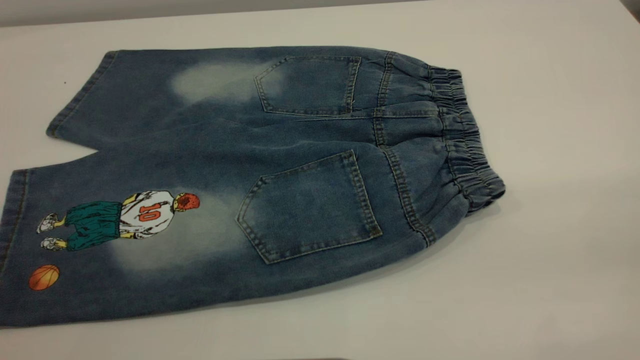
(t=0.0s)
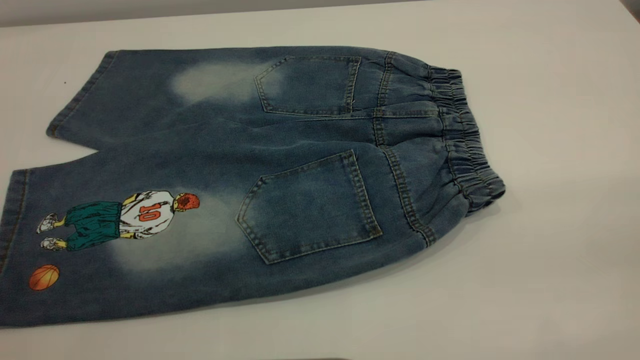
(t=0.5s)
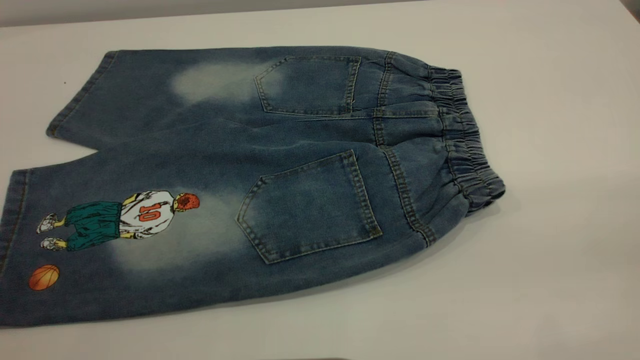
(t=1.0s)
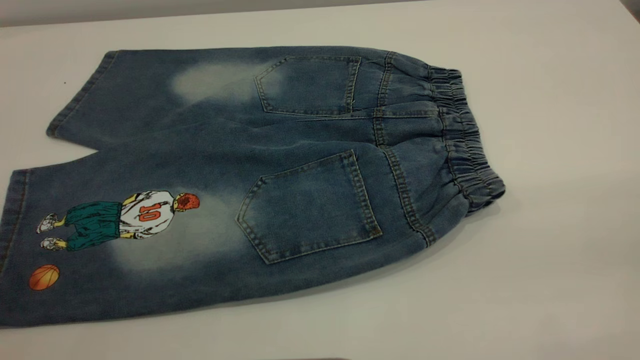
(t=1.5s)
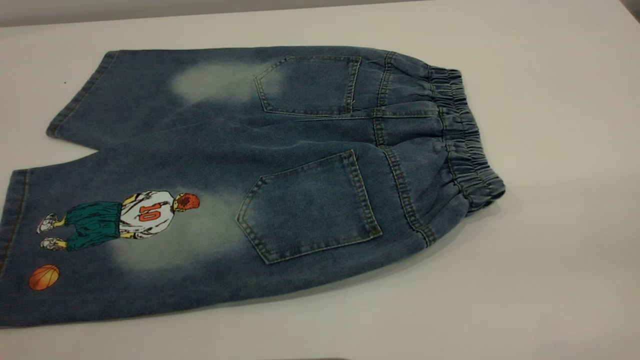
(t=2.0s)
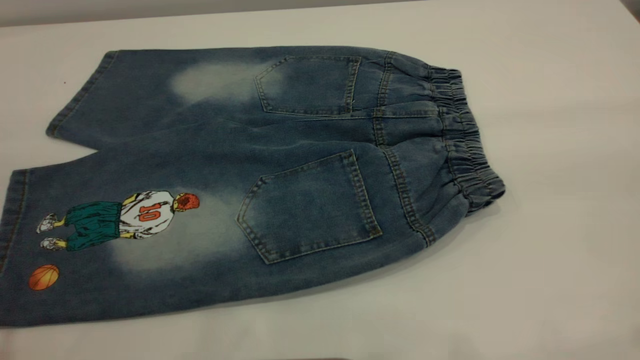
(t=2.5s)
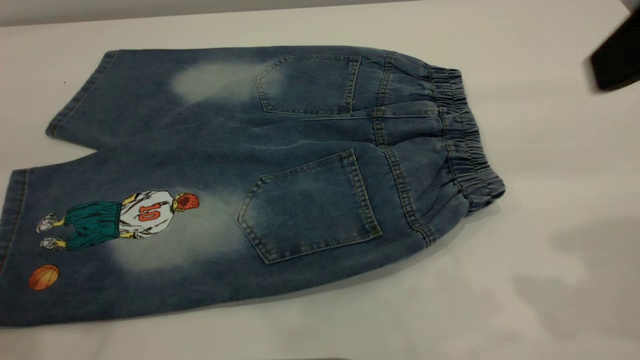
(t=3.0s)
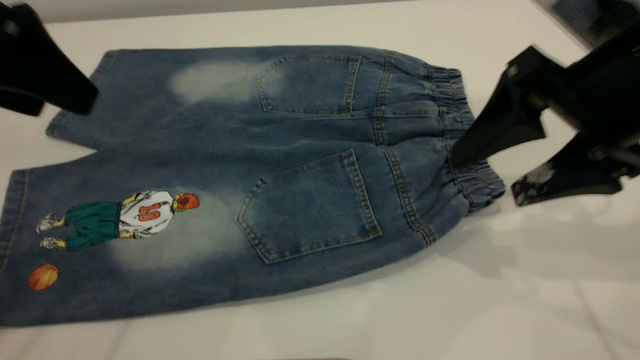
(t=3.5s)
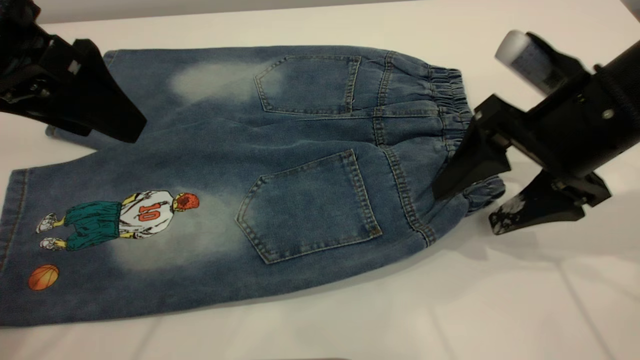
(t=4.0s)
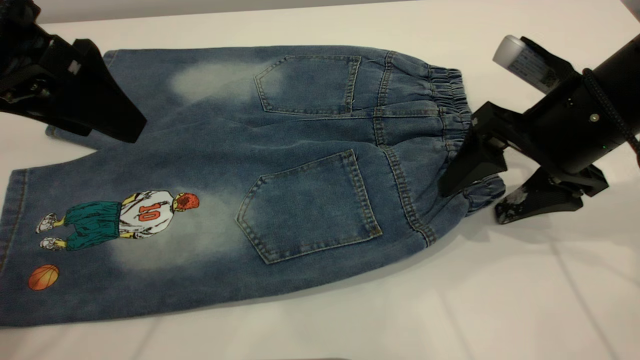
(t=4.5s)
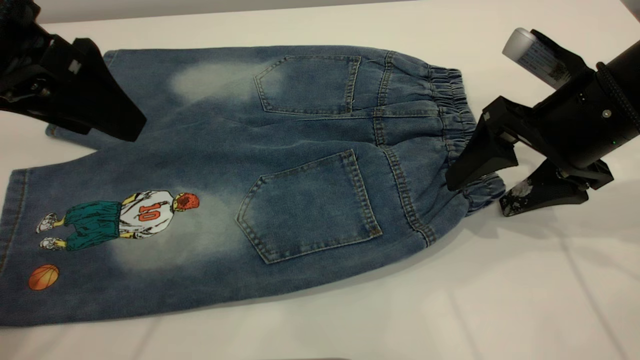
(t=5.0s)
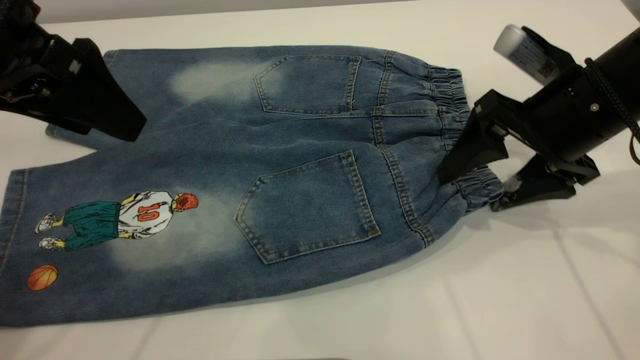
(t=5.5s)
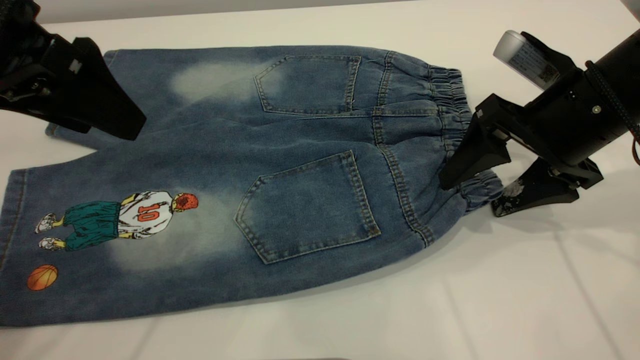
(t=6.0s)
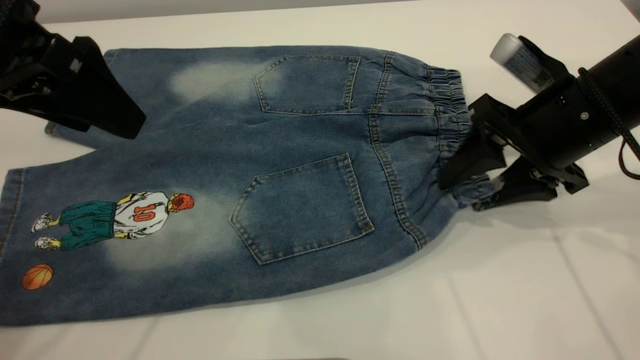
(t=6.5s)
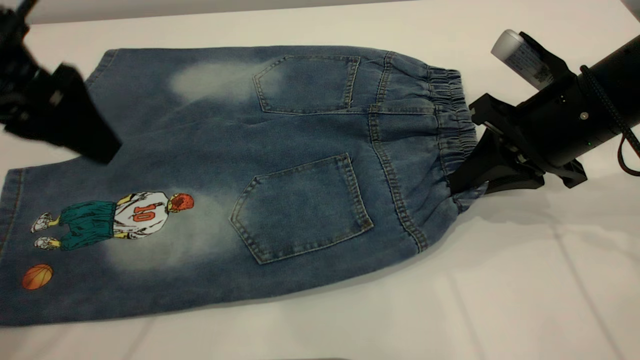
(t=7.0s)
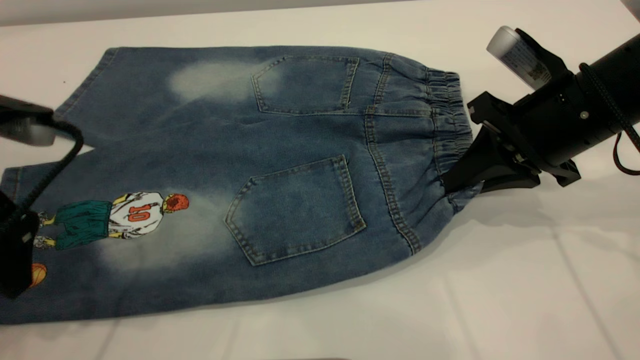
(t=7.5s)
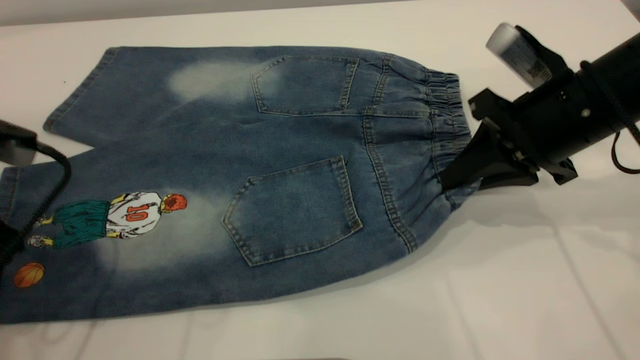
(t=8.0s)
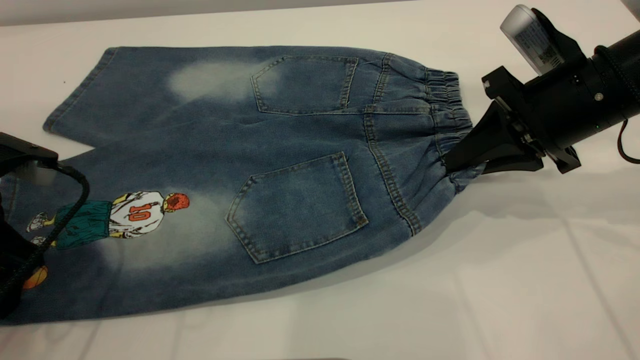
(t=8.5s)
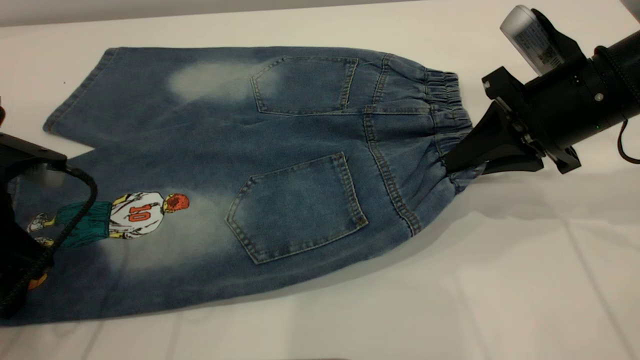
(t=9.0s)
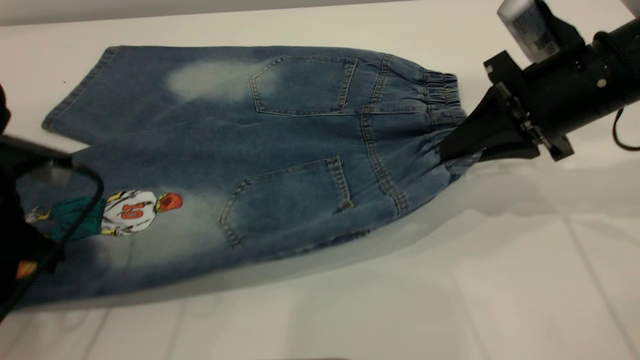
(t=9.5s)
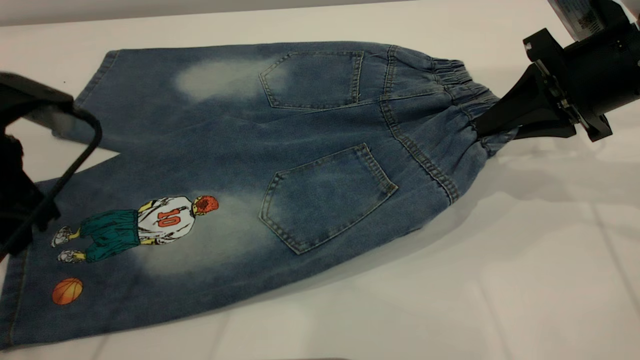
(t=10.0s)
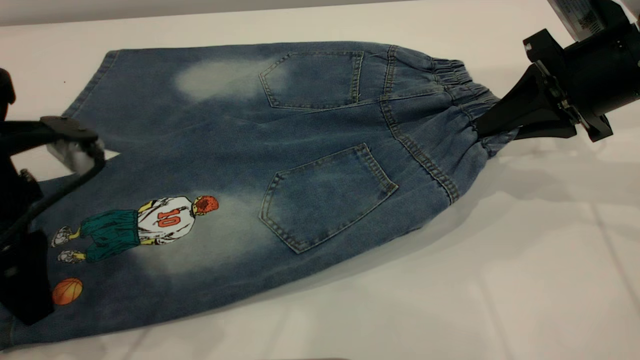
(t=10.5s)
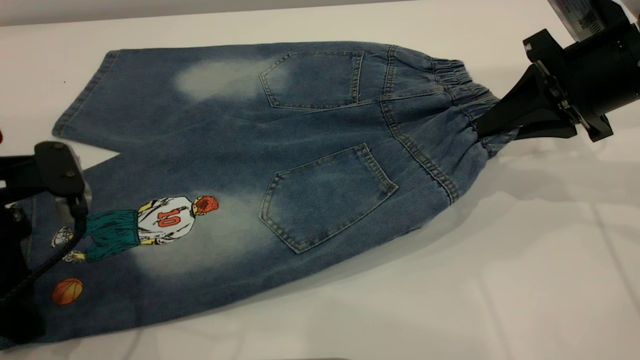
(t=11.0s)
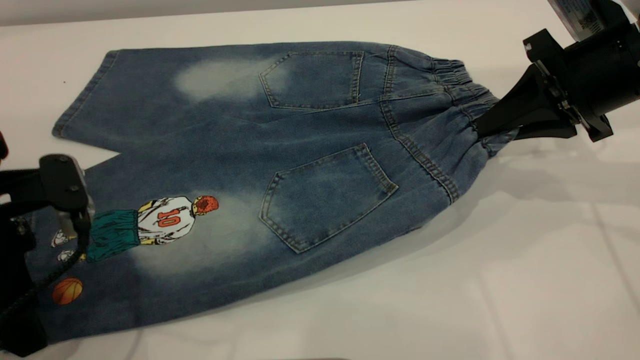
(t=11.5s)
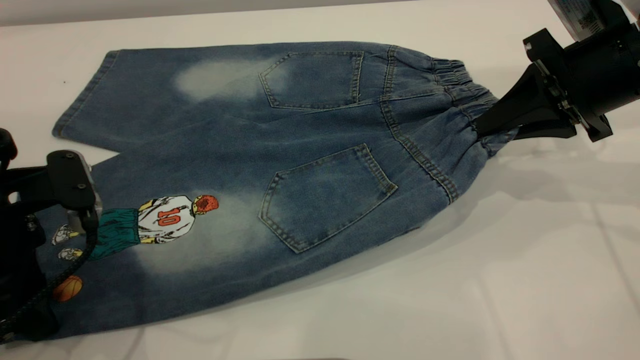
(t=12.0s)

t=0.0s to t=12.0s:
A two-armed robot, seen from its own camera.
t=0.0s to t=2.0s: Both grippers stay about where they are.
t=2.0s to t=4.0s: The right gripper is displaced forward and downward by some 35 cm; the left gripper heads forward, covering approximately 25 cm.
t=4.0s to t=6.0s: There are only small adjustments of the grippers.
t=6.0s to t=8.0s: The right gripper closes up. Meanwhile the left gripper heads downward and to the left, covering about 10 cm.
t=8.0s to t=10.0s: The right gripper ends up roughly 5 cm from where it was. Meanwhile the left gripper closes up.
t=10.0s to t=12.0s: The left gripper ends up approximately 5 cm from where it was, and opens.

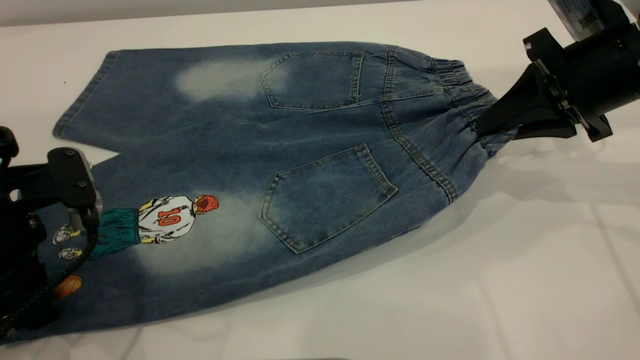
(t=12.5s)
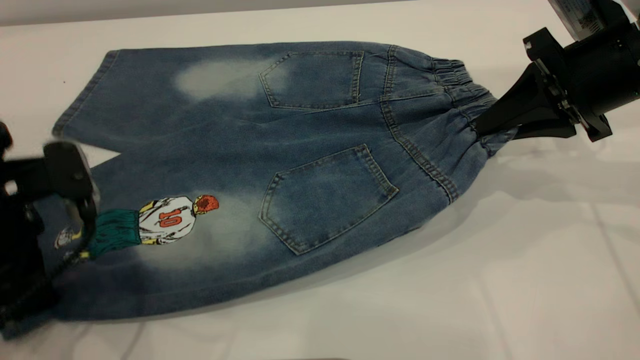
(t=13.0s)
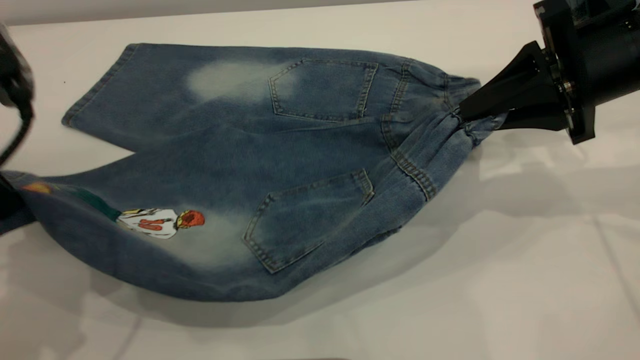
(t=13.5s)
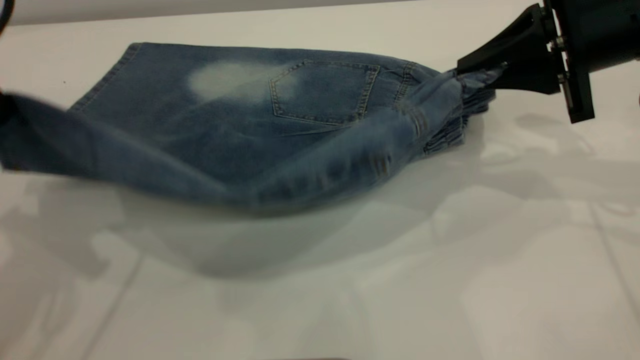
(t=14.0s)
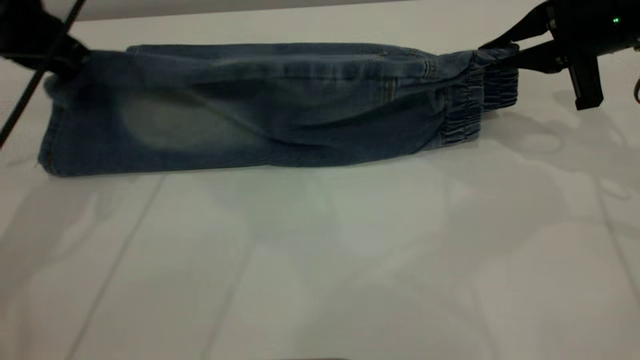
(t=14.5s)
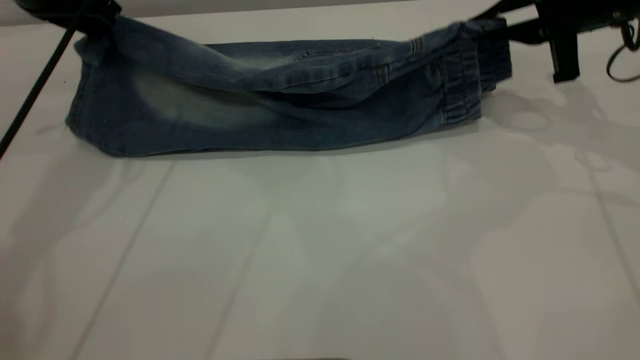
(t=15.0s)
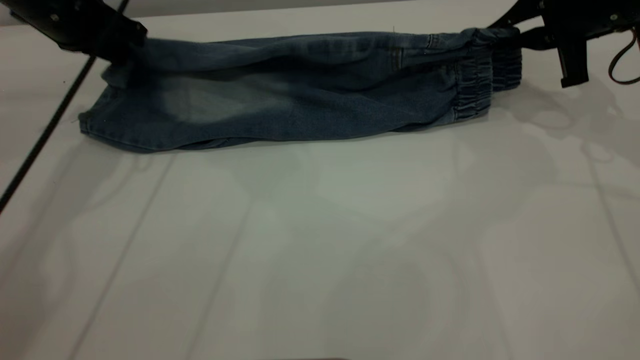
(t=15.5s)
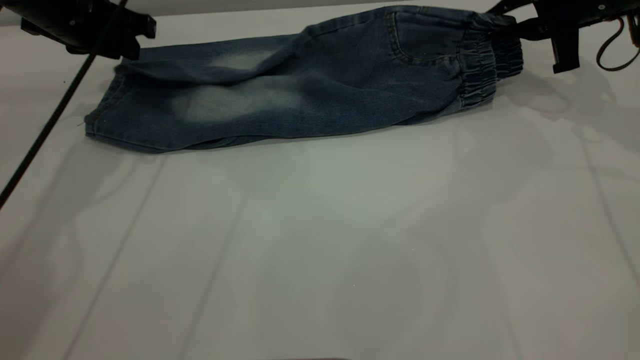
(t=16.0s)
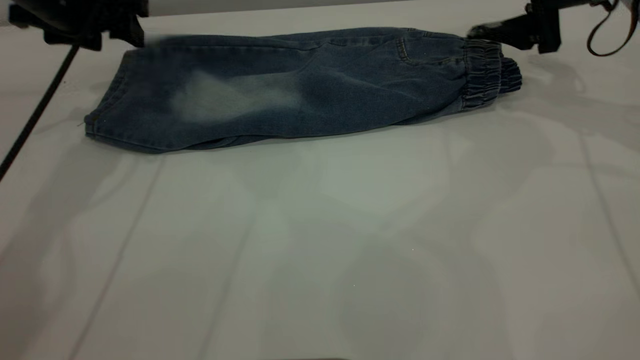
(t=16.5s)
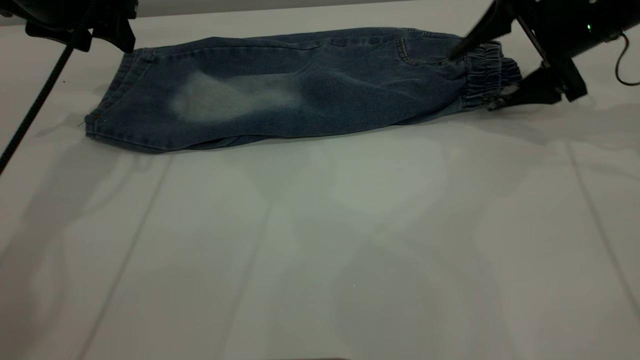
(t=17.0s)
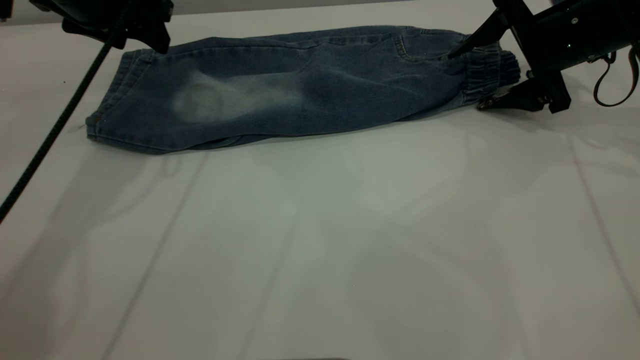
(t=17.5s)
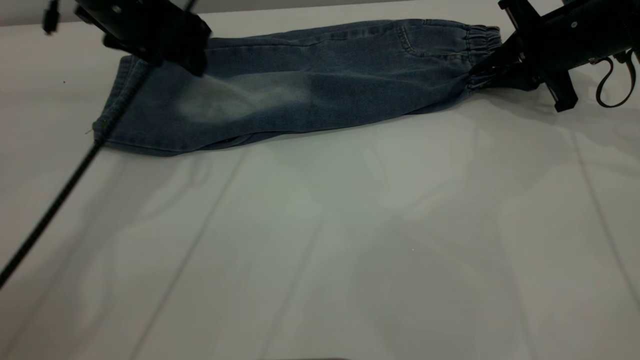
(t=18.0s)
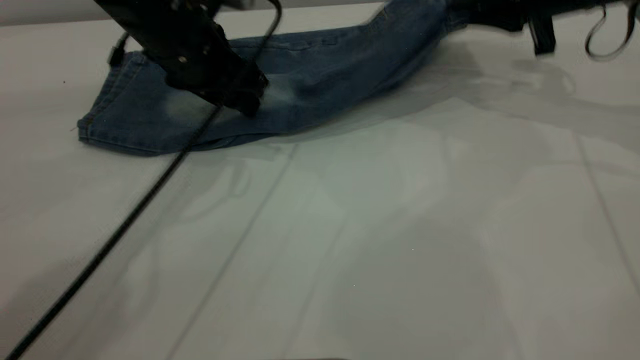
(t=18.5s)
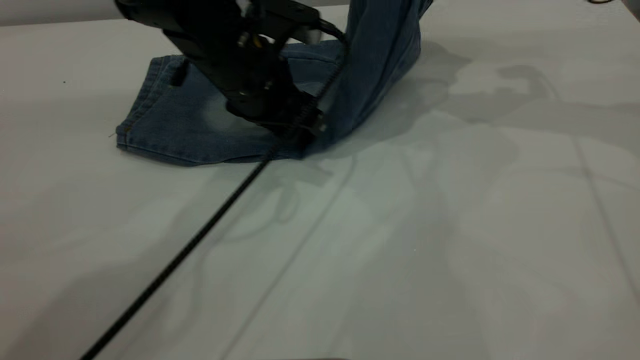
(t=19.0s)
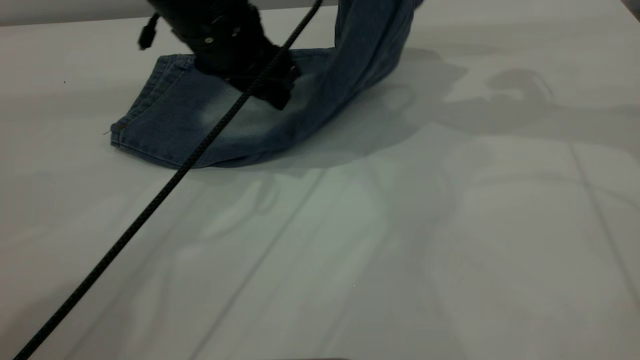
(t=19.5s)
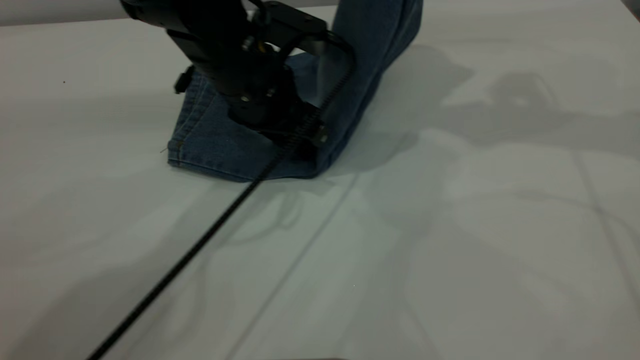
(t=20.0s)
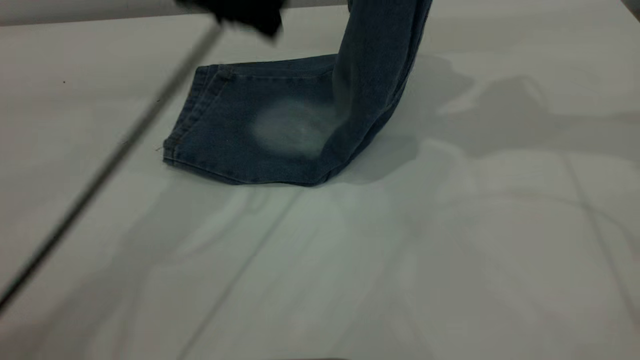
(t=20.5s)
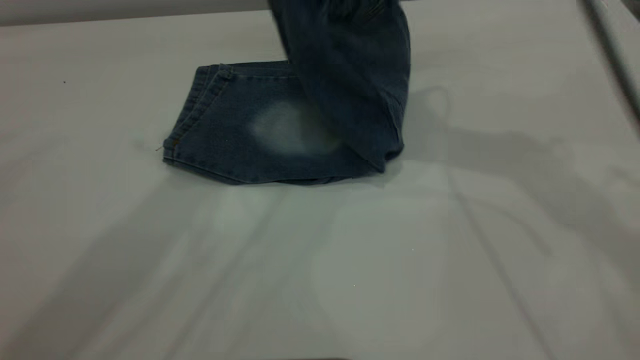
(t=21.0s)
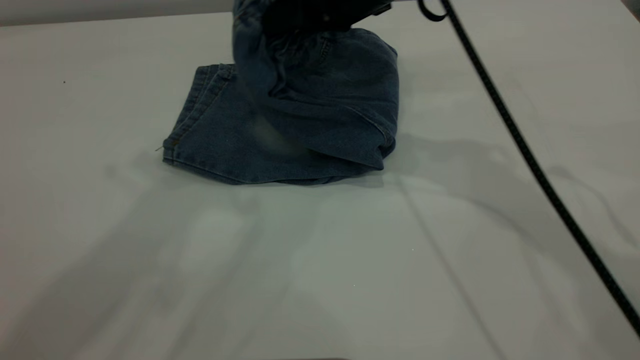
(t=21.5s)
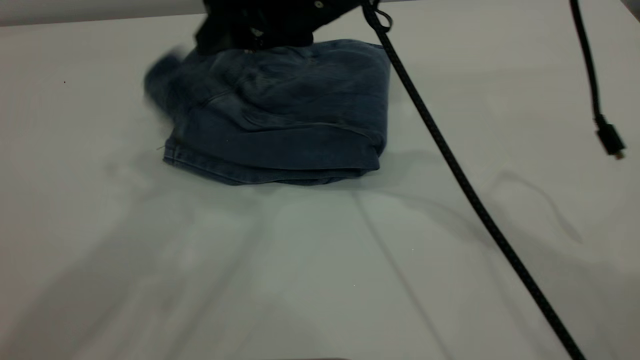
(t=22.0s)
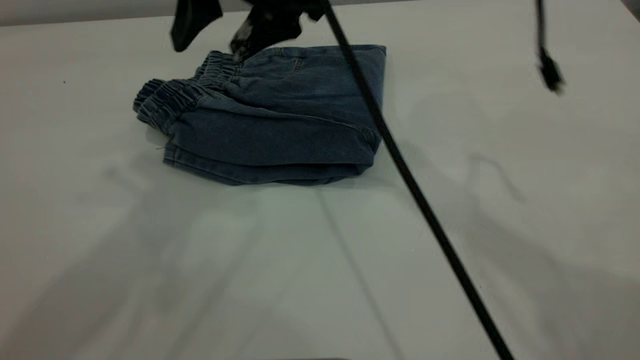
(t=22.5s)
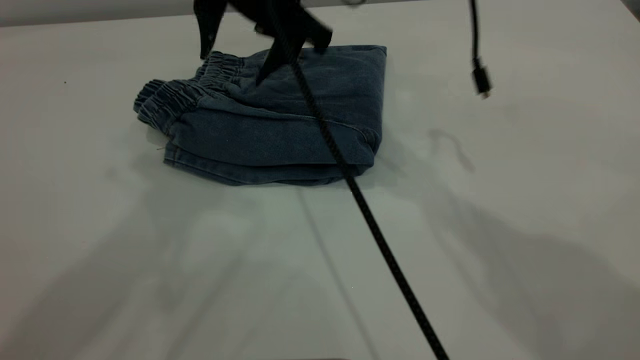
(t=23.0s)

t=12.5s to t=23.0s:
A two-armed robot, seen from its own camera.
Step, t=12.5s to t=16.5s: Fold the bottom of the pants upward.
Step, t=17.0s to t=22.5s: Fold your pants from right to left.
t=12.5s to t=14.5s: The left gripper moves forward and upward, some 20 cm.
t=14.5s to t=16.5s: Both grippers travel together forward, some 5 cm. The right gripper opens. Meanwhile the left gripper opens its fingers.
t=16.5s to t=19.0s: The left gripper shifts approximately 20 cm to the right. The right gripper shifts about 5 cm upward, and closes its fingers.
t=19.0s to t=21.0s: The left gripper moves up and down over some 30 cm, changing direction 2 times. The right gripper shifts about 15 cm to the left.
t=21.0s to t=23.0s: The right gripper travels to the left and downward by roughly 15 cm, and opens its fingers.
